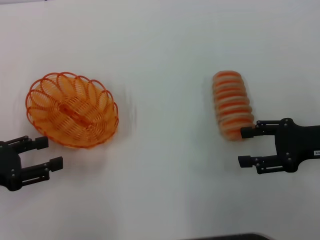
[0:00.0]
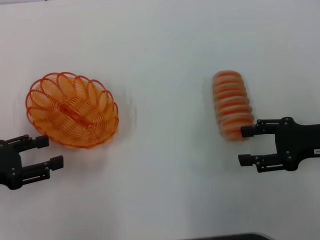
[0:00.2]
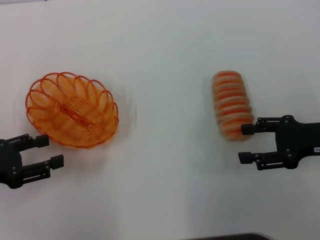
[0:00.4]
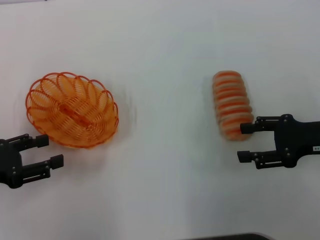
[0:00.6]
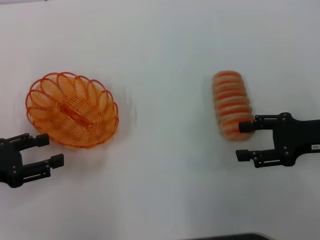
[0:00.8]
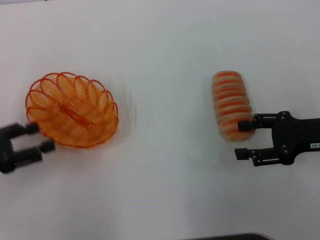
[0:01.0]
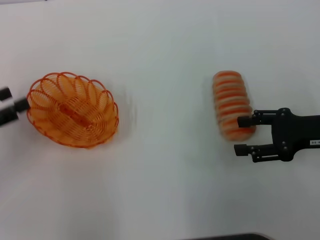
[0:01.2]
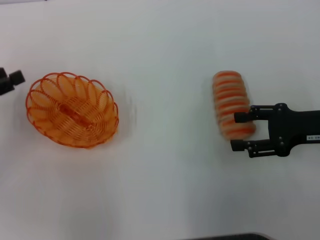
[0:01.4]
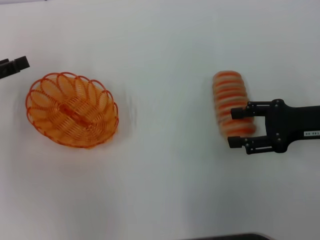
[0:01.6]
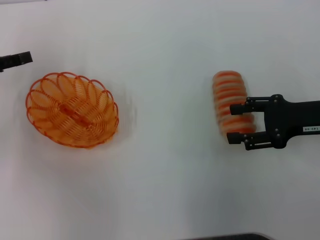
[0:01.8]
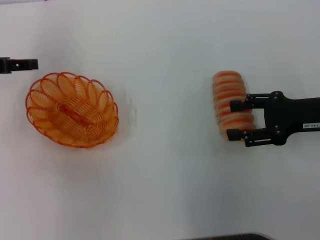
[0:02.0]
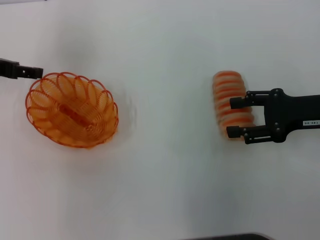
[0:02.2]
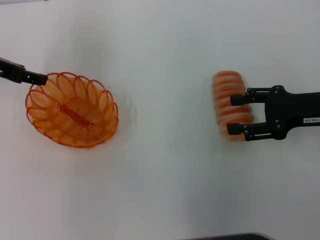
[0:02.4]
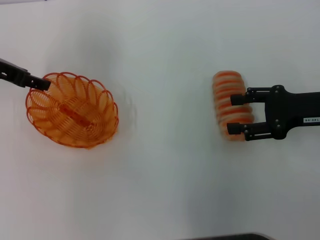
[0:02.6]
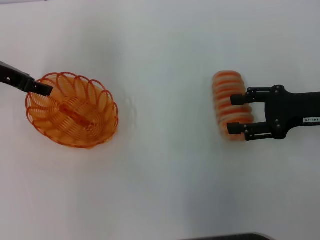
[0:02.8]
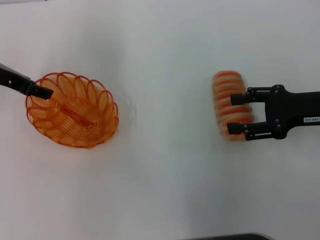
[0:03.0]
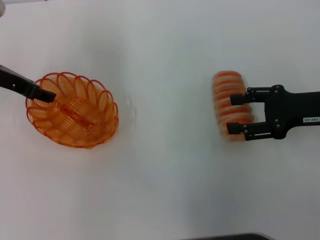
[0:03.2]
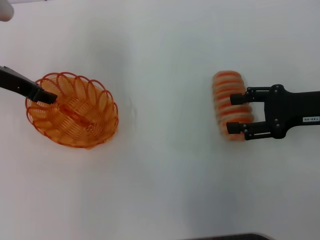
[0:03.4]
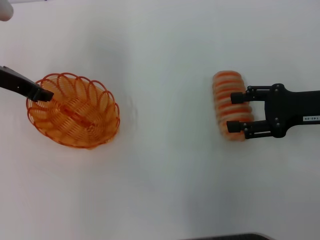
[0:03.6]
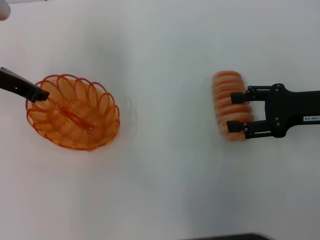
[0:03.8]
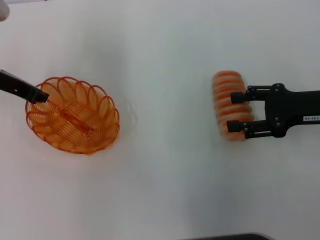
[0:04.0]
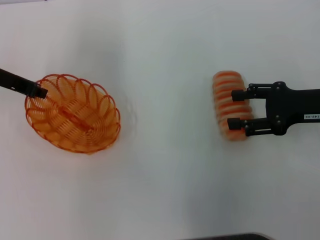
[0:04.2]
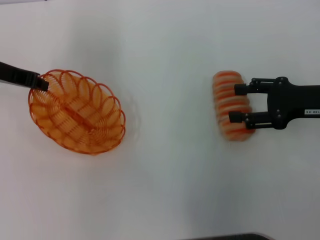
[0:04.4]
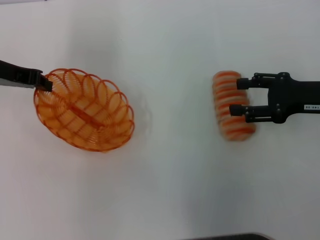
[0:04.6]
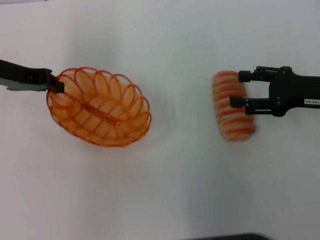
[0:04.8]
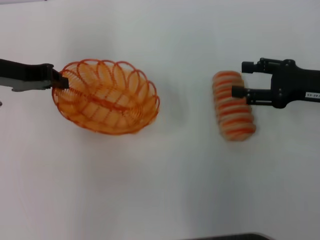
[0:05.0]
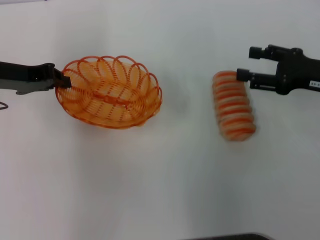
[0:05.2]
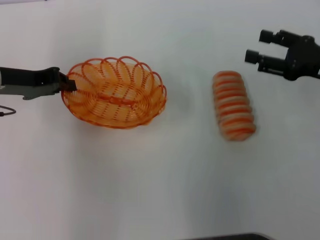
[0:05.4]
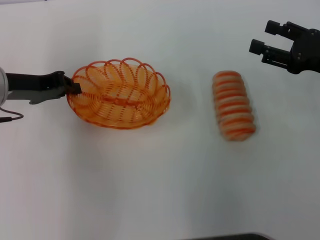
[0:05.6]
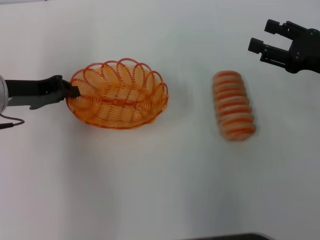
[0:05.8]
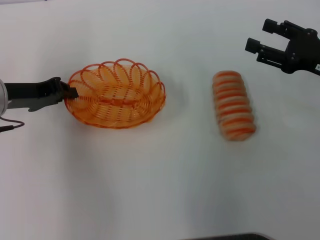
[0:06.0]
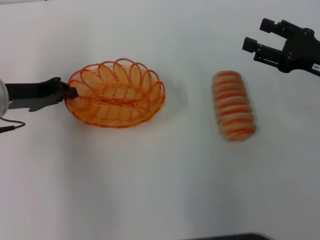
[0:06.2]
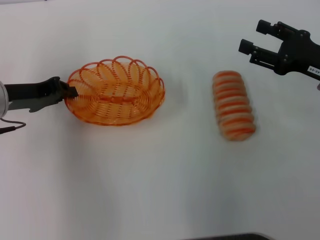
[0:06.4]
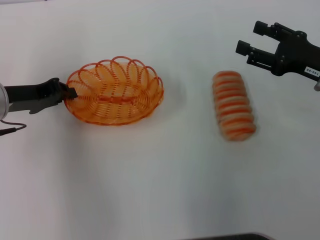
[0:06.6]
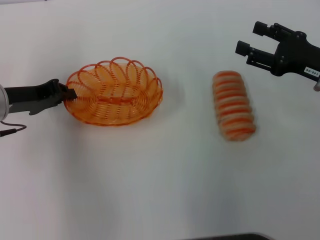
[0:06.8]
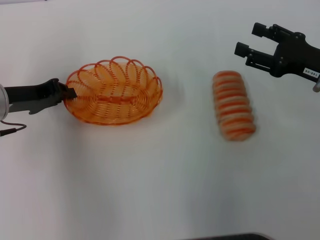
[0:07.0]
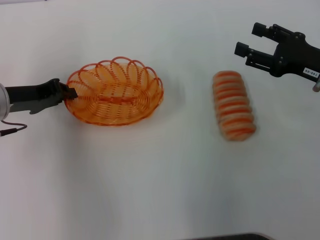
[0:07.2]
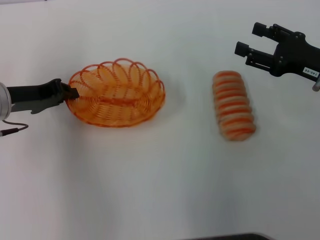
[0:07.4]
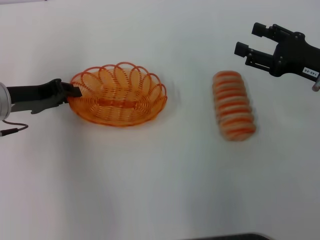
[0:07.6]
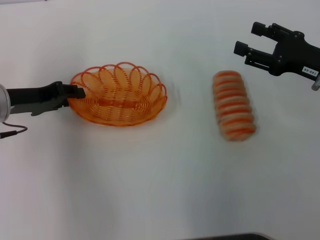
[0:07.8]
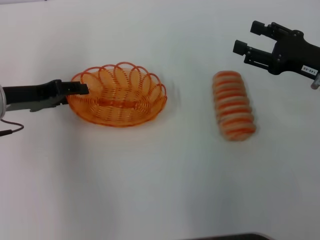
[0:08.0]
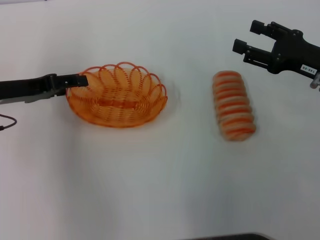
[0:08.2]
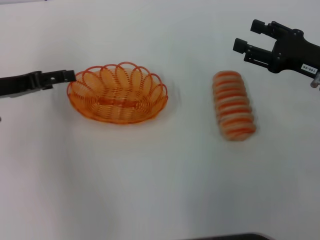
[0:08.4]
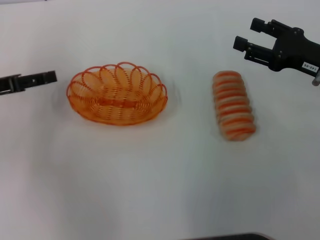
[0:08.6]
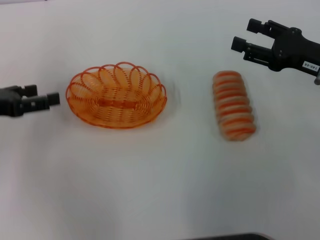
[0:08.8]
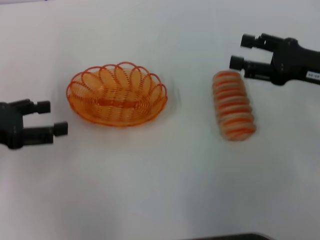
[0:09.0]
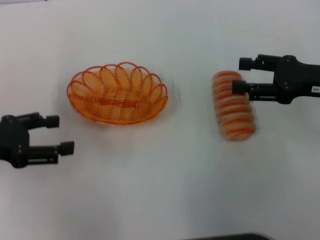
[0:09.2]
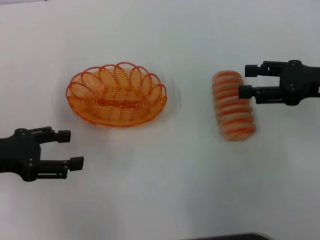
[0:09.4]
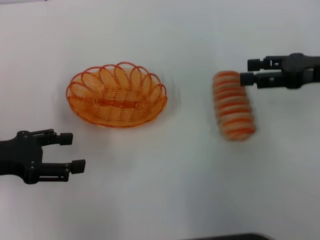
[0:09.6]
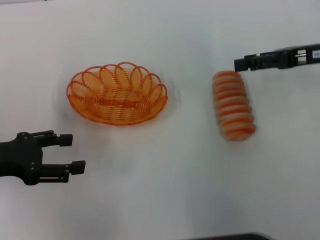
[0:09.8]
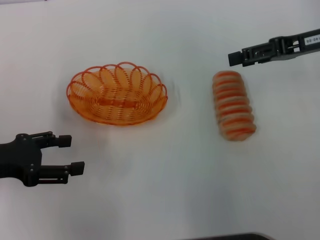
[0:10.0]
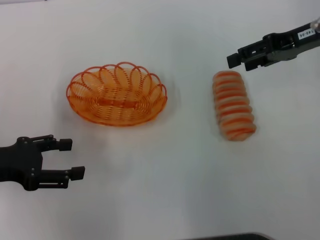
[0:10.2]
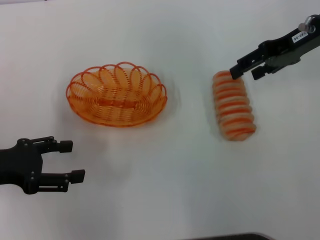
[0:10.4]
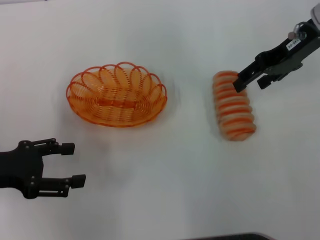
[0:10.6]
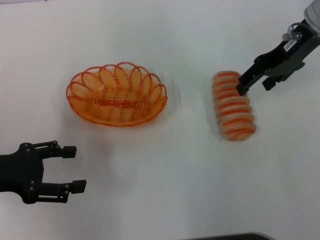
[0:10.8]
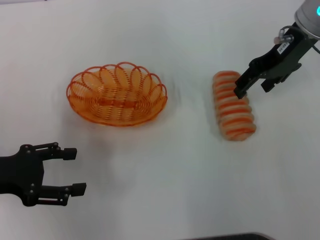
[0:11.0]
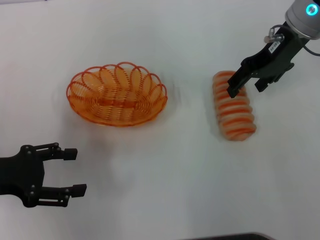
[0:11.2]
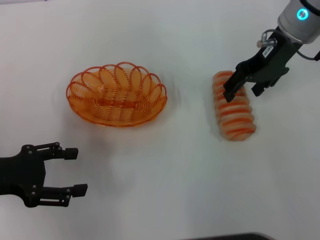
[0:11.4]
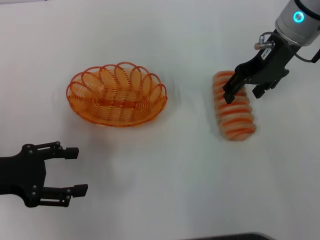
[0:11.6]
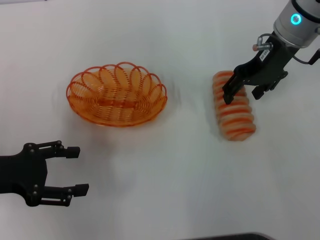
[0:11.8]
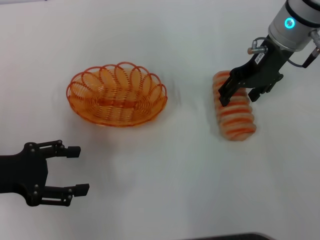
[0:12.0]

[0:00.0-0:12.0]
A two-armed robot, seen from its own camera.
Step, 0:00.0 to 0:04.6: Pick up the basket with the left gripper.
Step, 0:04.8 to 0:08.4: Place the basket in the center of view with the left gripper.
0:00.0 to 0:01.6: The left gripper moves forward, roughly 10 cm.
0:01.6 to 0:03.0: The left gripper goes about 10 cm to the right and forward.
0:03.0 to 0:04.4: The left gripper closes its fingers.
0:04.4 to 0:06.0: The left gripper shifts about 5 cm downward.
0:06.0 to 0:07.6: The grippers stay close to where they were, moving slightly.
0:07.6 to 0:09.0: The left gripper is displaced backward and to the left by about 10 cm, and opens.
0:09.0 to 0:10.4: The right gripper travels forward and upward by about 10 cm.
0:10.4 to 0:12.0: The right gripper shifts about 10 cm to the left.

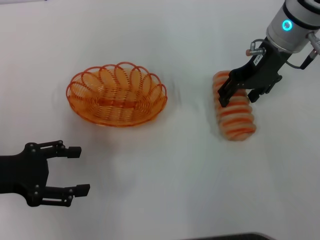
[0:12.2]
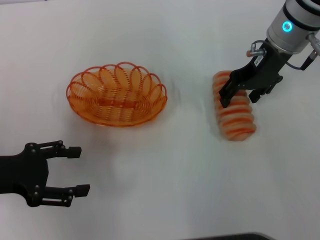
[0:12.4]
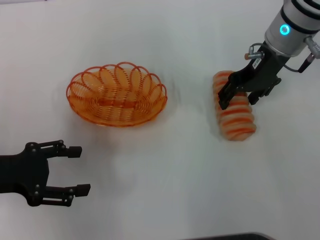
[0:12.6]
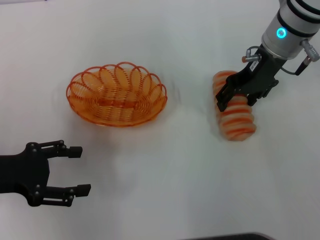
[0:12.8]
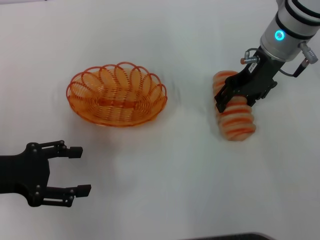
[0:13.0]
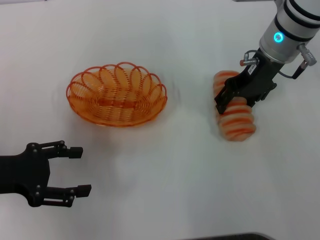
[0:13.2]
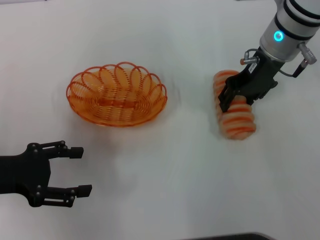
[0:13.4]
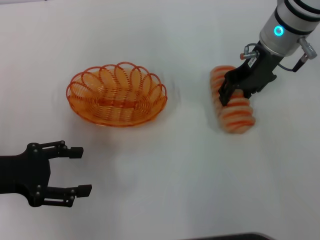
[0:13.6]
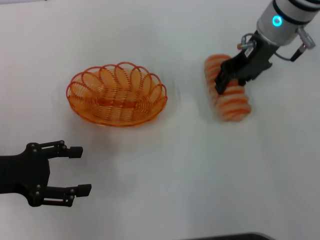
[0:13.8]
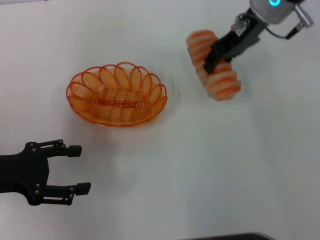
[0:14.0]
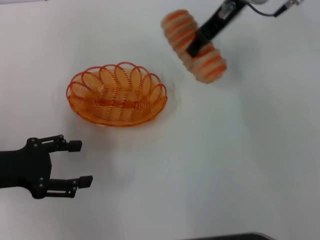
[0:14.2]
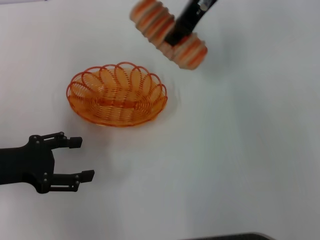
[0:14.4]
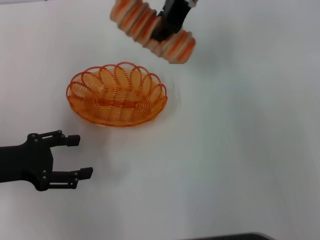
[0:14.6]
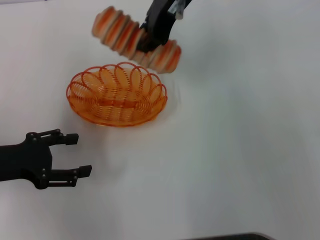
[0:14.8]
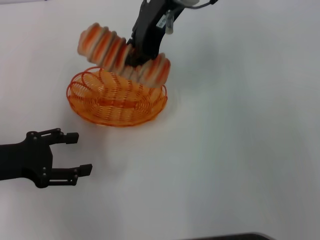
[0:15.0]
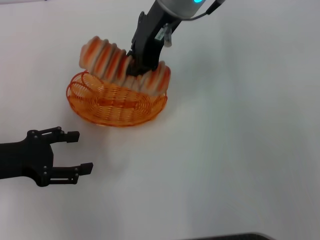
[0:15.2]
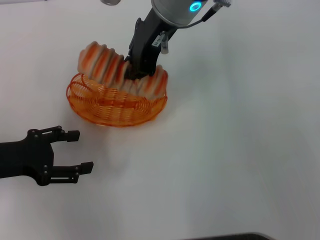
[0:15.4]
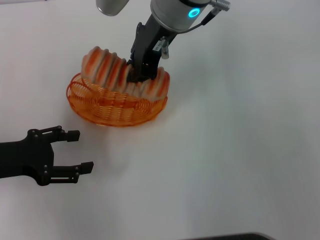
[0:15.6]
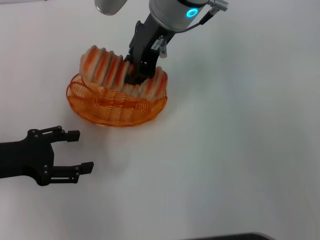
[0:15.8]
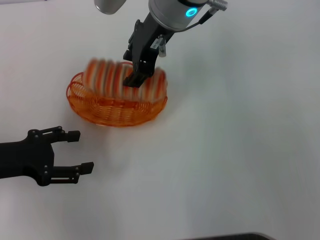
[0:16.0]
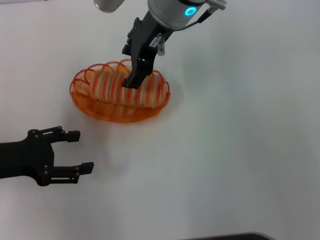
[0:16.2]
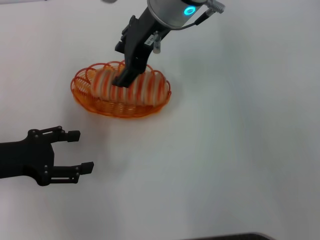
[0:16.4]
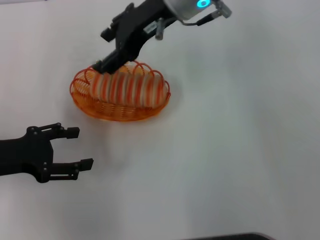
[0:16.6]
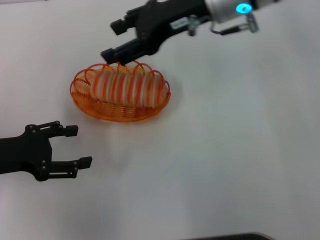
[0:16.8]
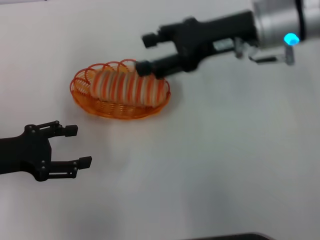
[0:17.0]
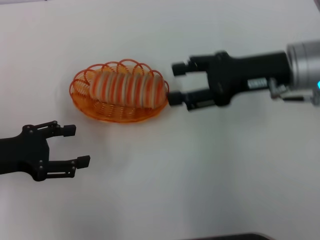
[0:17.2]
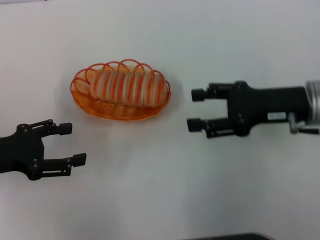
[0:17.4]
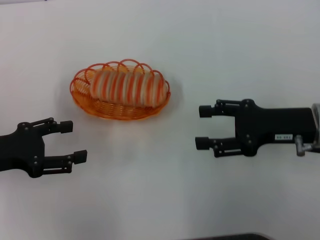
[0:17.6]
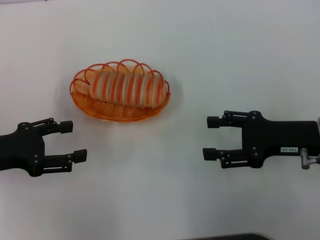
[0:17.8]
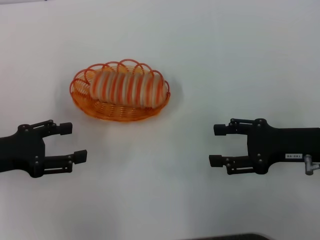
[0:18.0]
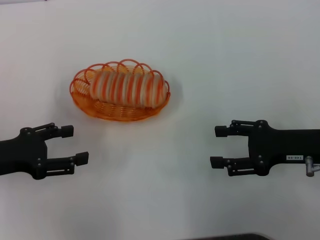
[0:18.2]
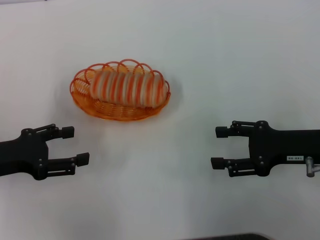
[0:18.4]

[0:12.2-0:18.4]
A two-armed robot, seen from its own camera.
Step, 0:14.0 to 0:16.6: Place the long bread into the basket with the right gripper.
0:12.2 to 0:13.8: The right gripper closes up.
0:13.8 to 0:15.4: The right gripper moves to the left and upward, about 15 cm, and closes.
0:15.4 to 0:16.8: The right gripper moves to the right, approximately 10 cm, and opens.
0:16.8 to 0:18.4: The right gripper heads to the right, backward and downward, covering roughly 25 cm.

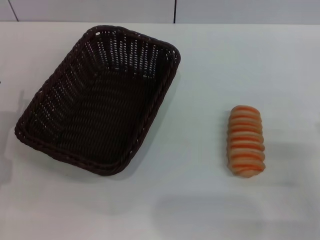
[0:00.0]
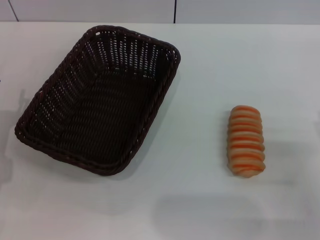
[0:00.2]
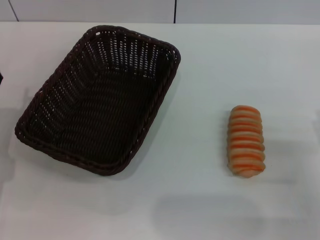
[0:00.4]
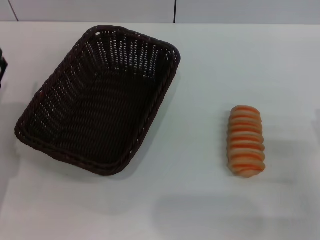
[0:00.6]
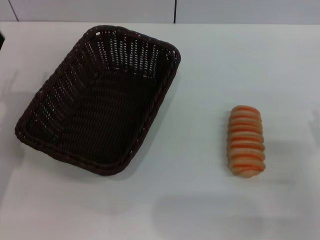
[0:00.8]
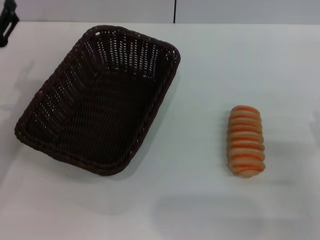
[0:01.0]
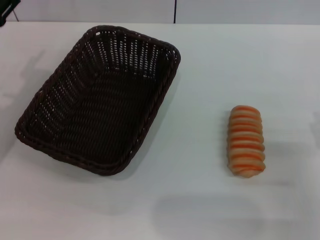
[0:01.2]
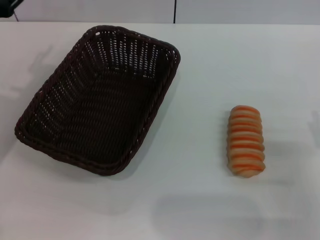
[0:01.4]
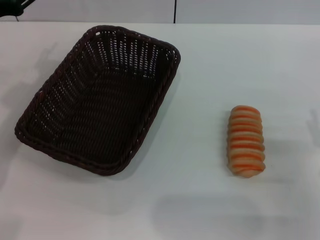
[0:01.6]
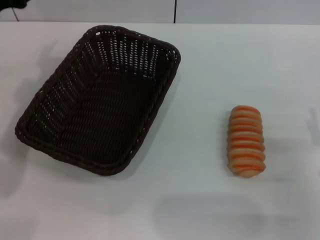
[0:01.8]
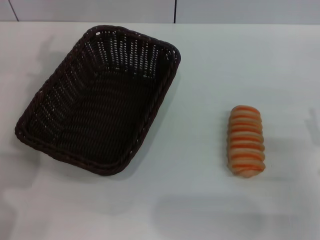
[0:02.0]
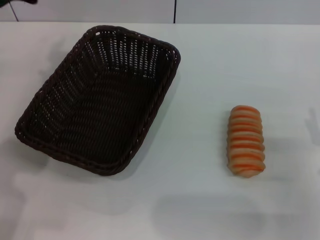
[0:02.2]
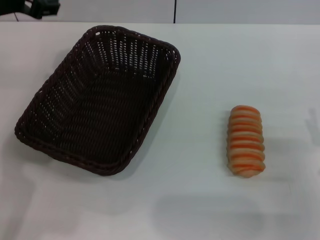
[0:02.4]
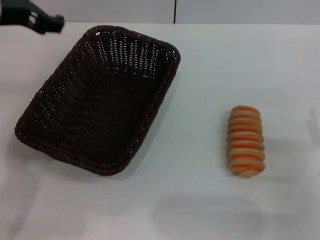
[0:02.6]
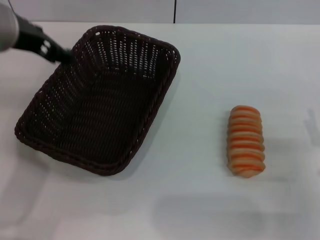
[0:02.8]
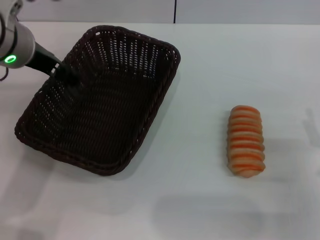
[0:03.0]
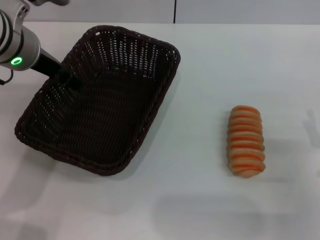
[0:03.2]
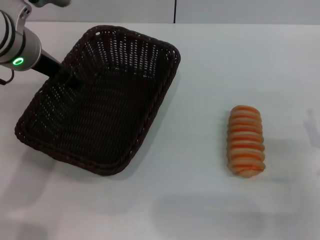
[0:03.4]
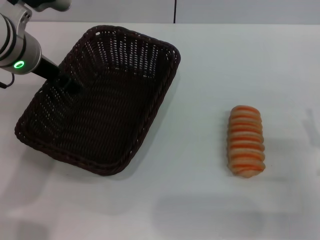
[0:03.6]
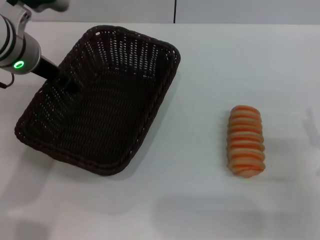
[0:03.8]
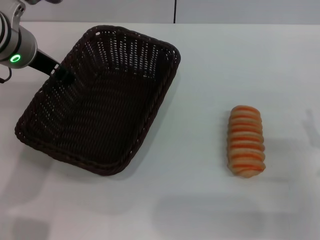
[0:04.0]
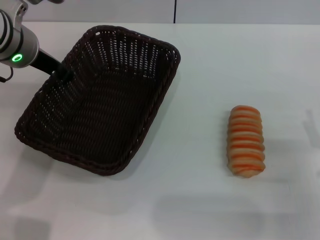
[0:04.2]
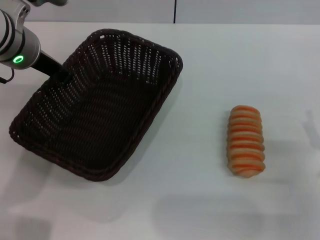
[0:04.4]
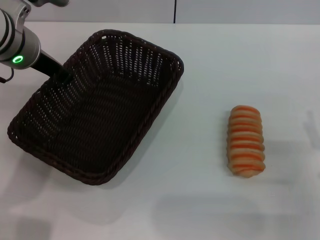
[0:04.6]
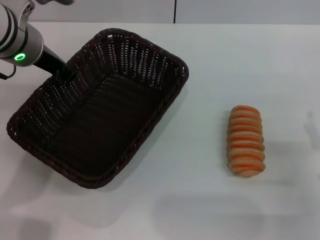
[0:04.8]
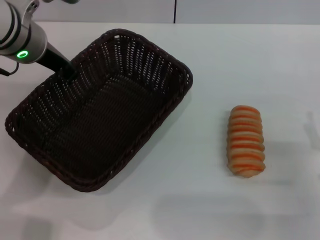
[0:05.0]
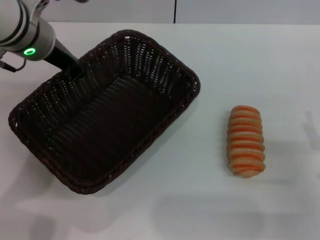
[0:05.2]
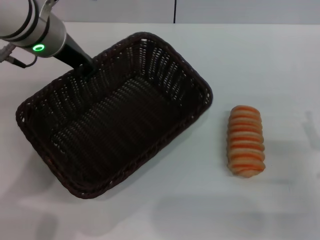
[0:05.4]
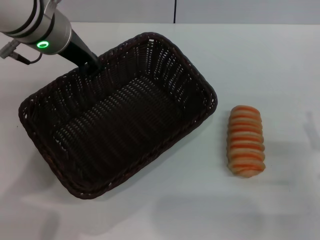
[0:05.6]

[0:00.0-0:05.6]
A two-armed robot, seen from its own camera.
Step, 0:00.0 to 0:04.4: Grasp the basket with the left gripper.
0:00.0 to 0:01.4: The left gripper shifts roughly 15 cm upward and forward.
0:01.4 to 0:02.8: The left gripper goes about 15 cm upward and to the right.
0:02.8 to 0:04.2: The left gripper moves downward, approximately 5 cm.
0:04.2 to 0:05.6: The left gripper shifts by roughly 5 cm, and closes.
